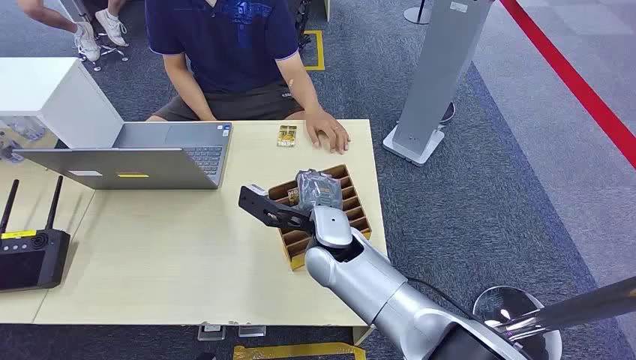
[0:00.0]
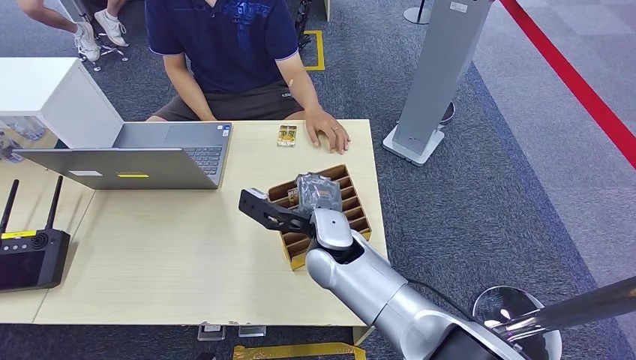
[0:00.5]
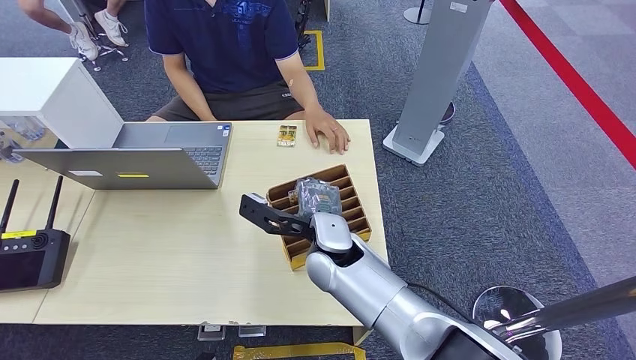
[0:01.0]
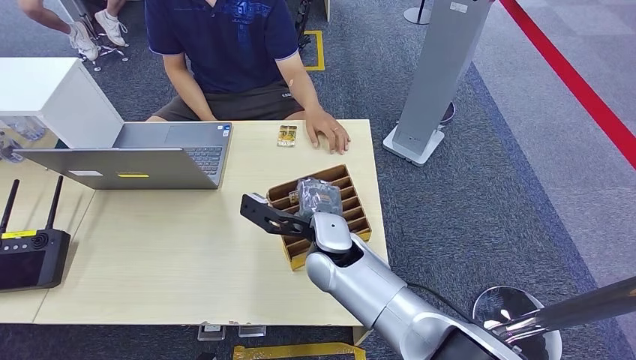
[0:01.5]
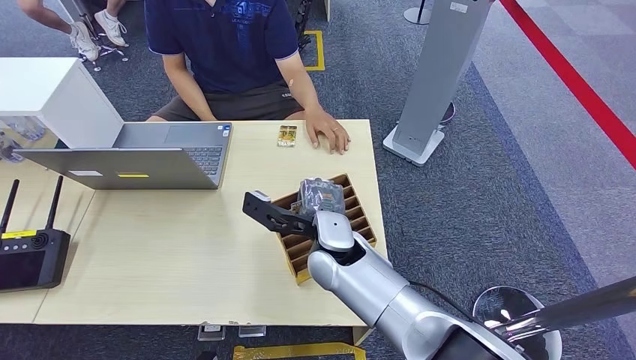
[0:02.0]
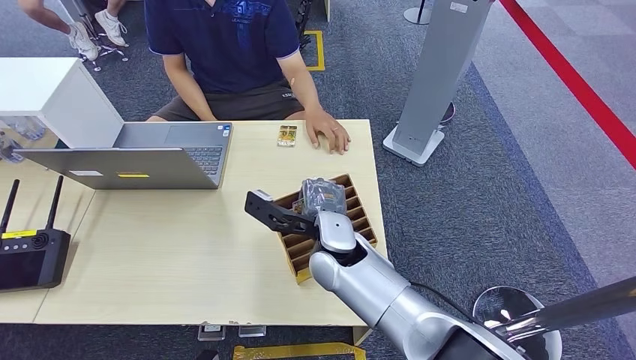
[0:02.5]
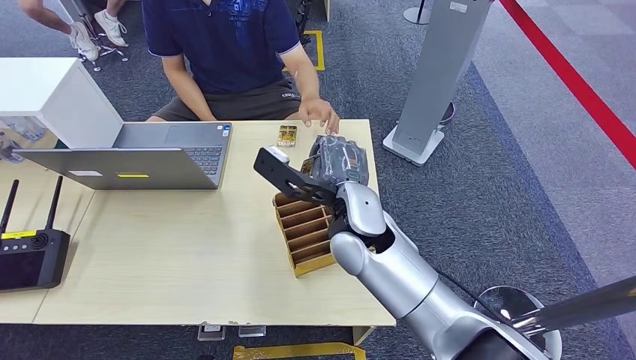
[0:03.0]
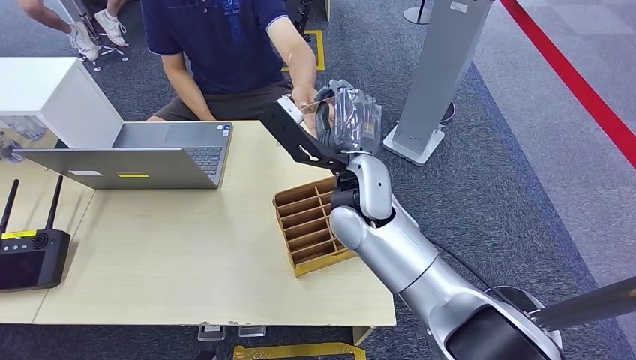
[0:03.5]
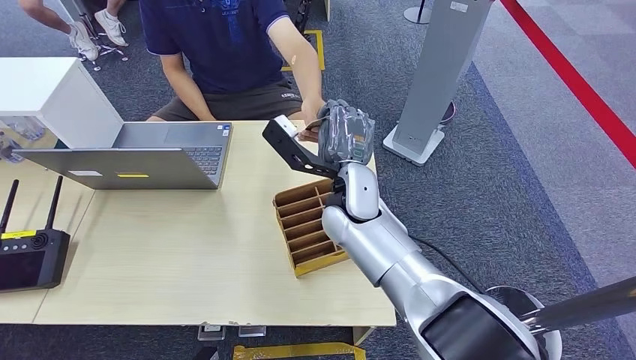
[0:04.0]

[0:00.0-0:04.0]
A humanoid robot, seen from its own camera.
Step, 0:00.0 to 0:02.5: Pick up the room card from the card holder.
Step, 0:03.5 to 0:04.0: Hand the room card to the target.
0:02.0 to 0:04.0: The right hand goes approximately 10 cm forward and upward.
